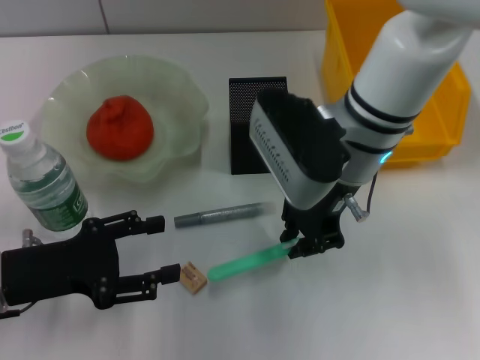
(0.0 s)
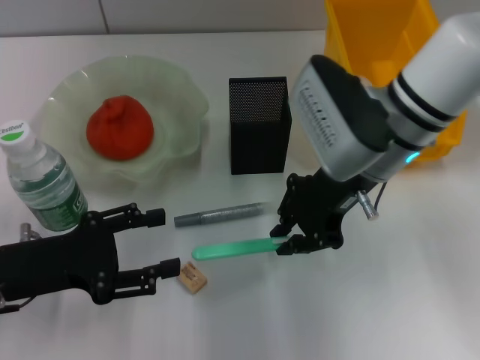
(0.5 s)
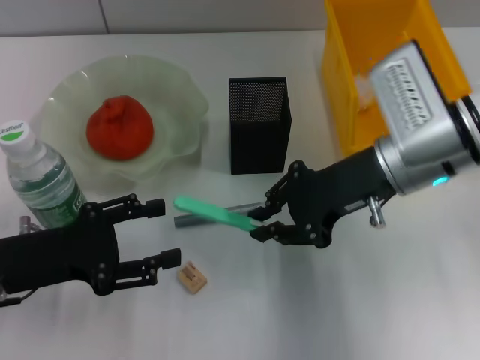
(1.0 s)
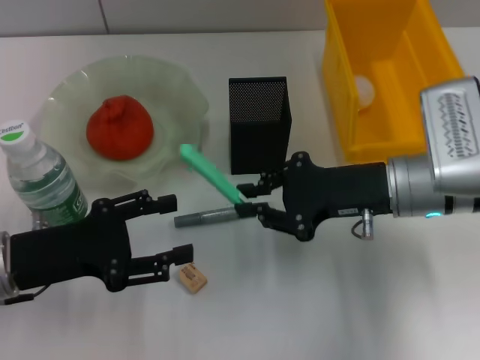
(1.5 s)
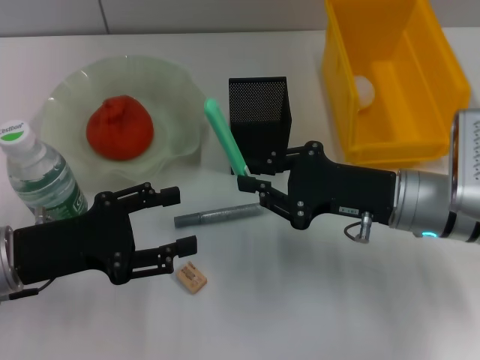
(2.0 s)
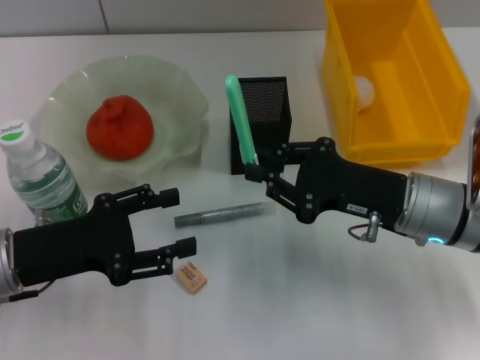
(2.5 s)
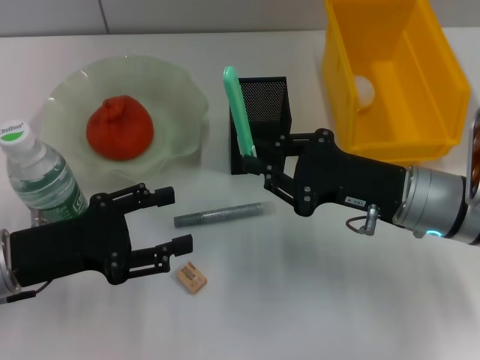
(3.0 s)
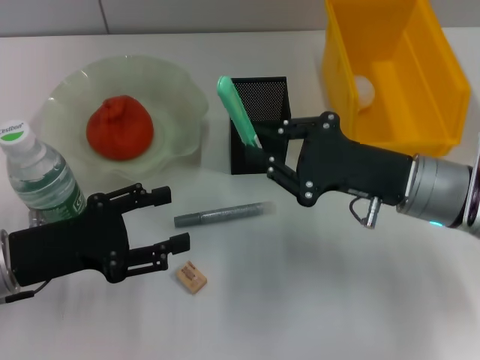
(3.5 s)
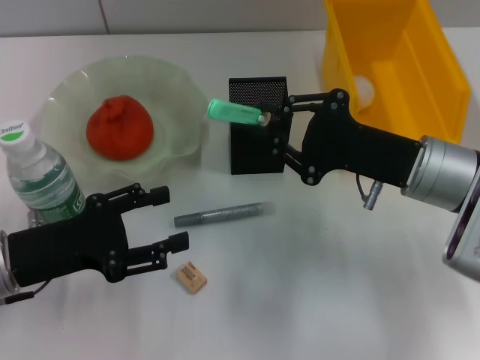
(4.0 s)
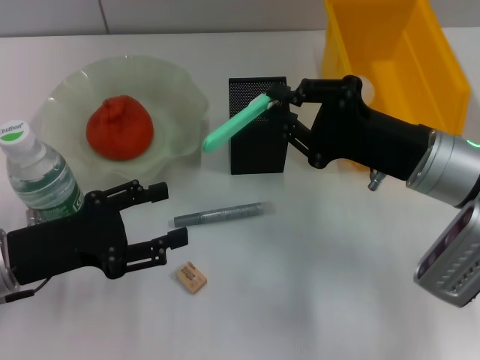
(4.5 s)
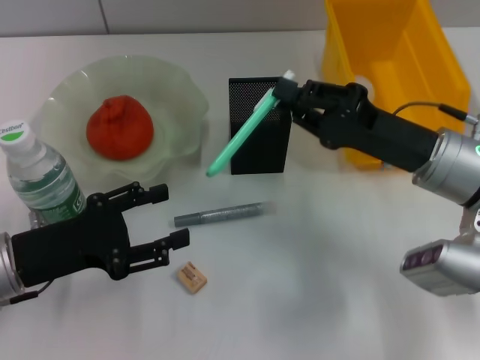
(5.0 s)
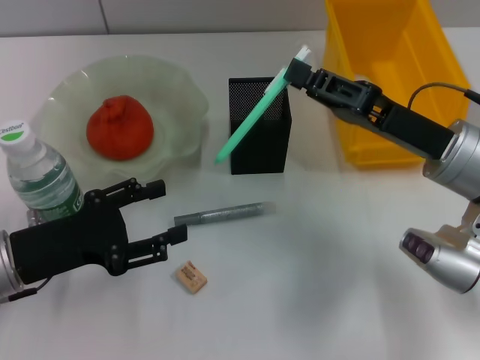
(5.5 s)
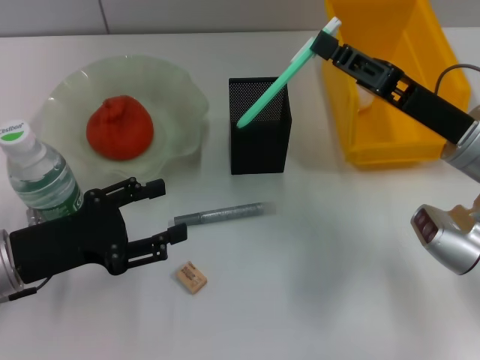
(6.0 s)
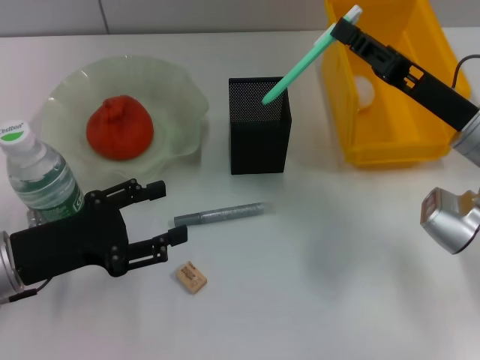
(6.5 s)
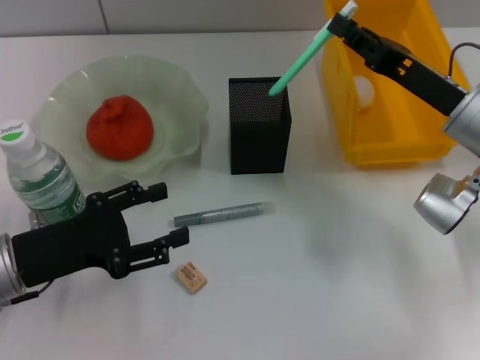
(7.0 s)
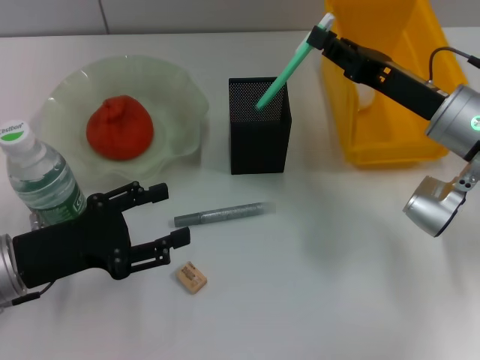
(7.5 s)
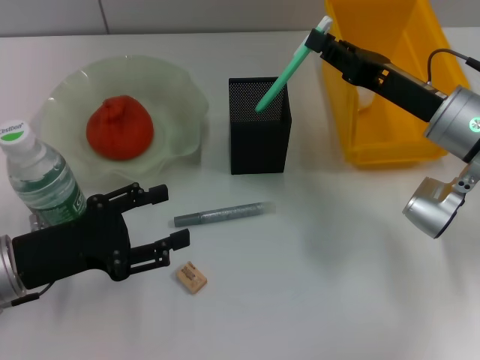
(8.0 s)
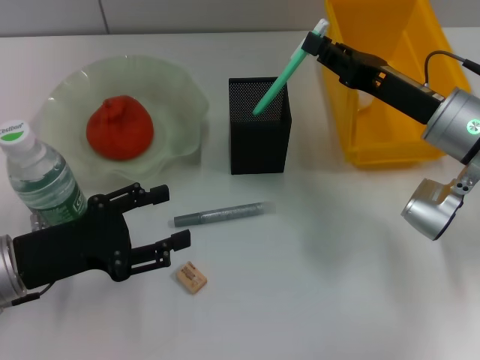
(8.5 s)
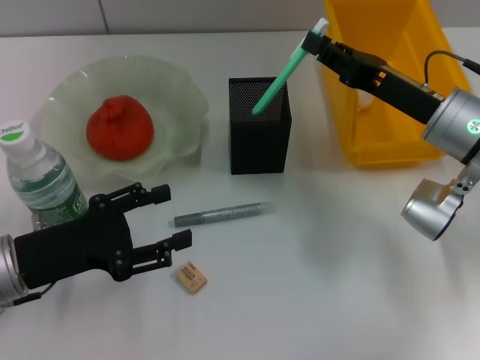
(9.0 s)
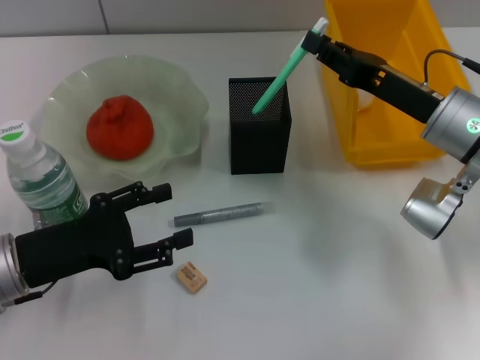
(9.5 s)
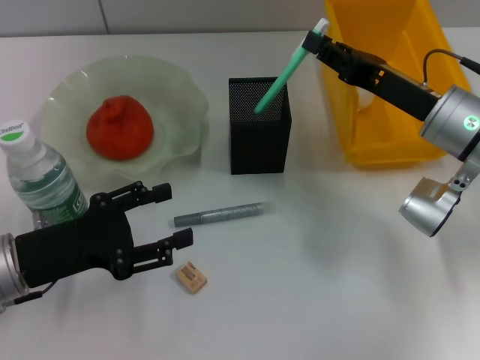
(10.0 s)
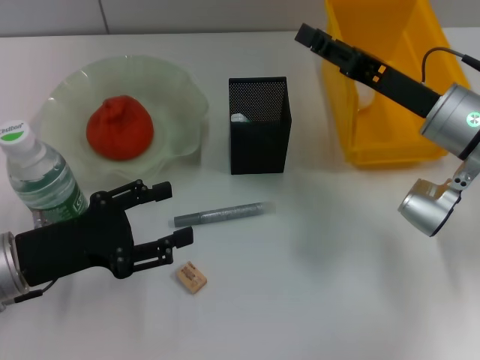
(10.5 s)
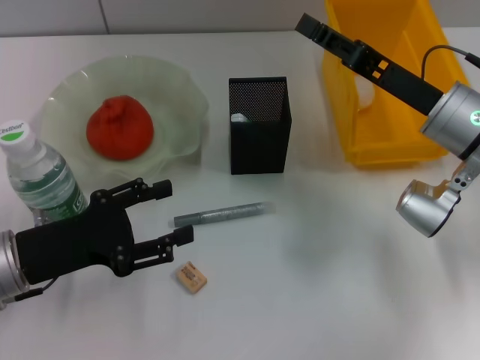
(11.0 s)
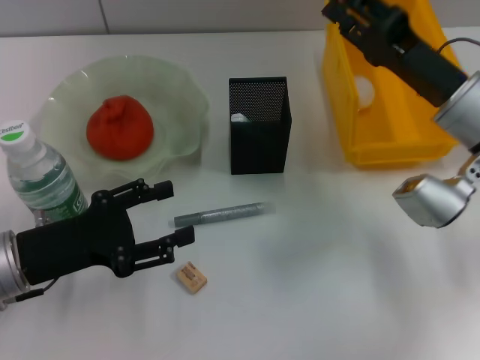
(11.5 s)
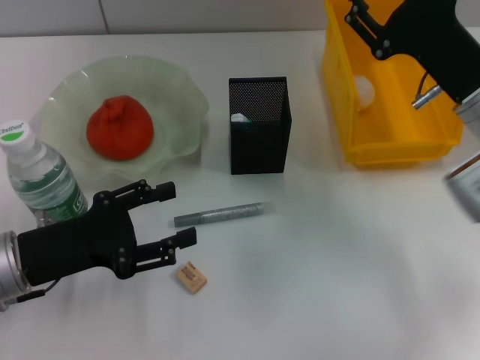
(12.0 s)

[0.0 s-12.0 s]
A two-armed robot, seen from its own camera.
Step, 0.0 to 11.0 s: Place the blue utility knife into the pen holder with the right hand.
0.0 to 2.0 s: The right gripper shifts roughly 15 cm to the right, downward and backward.
6.0 to 8.0 s: The grippers make only small movements.
8.0 to 10.0 s: Neither gripper changes place.
10.0 to 12.0 s: The right gripper opens up.

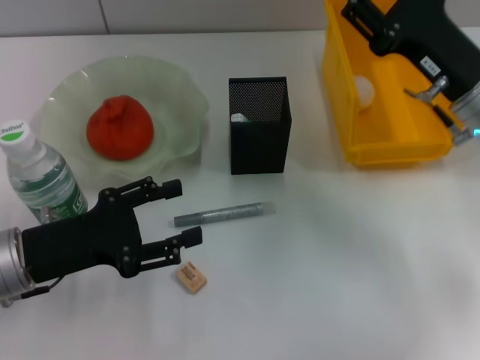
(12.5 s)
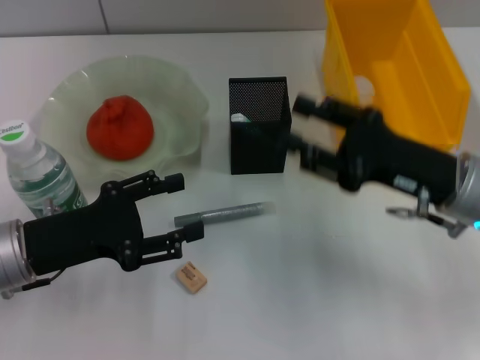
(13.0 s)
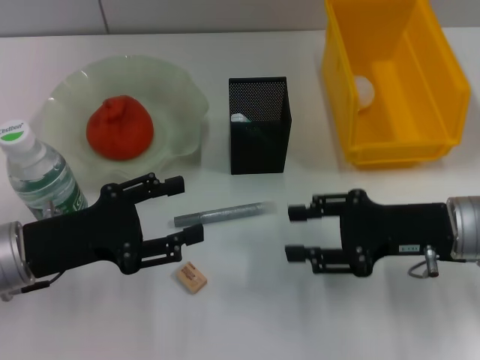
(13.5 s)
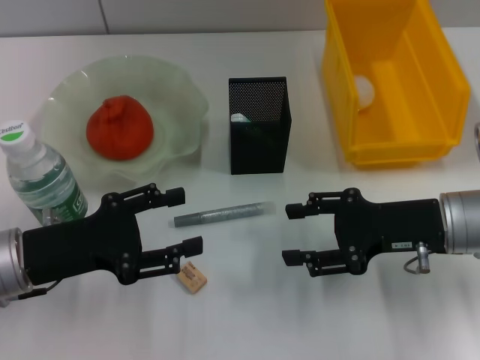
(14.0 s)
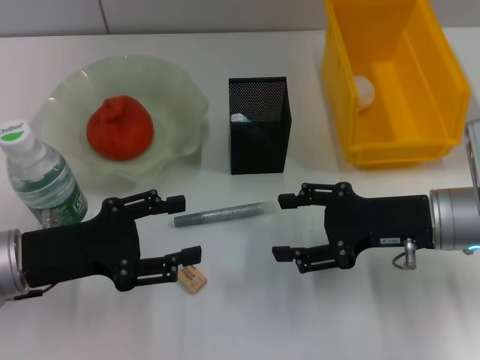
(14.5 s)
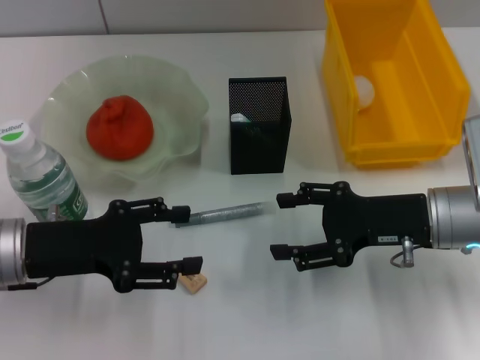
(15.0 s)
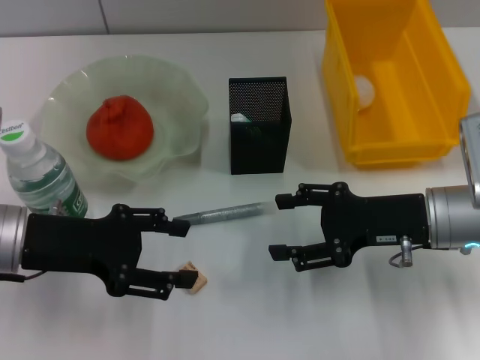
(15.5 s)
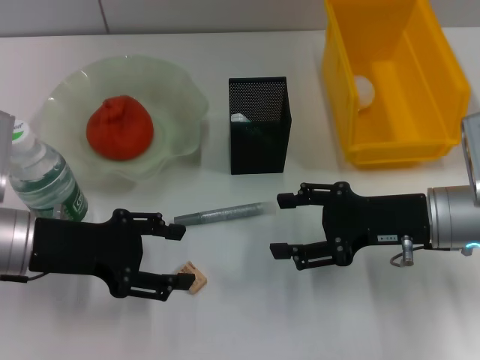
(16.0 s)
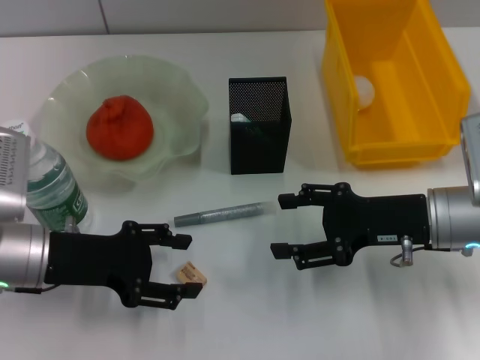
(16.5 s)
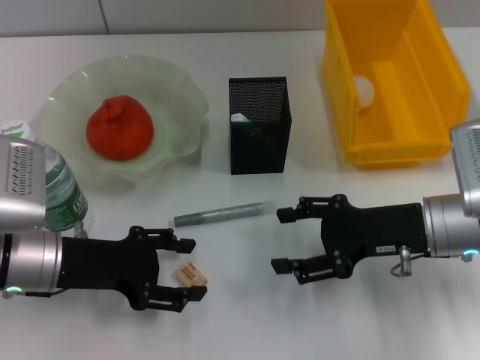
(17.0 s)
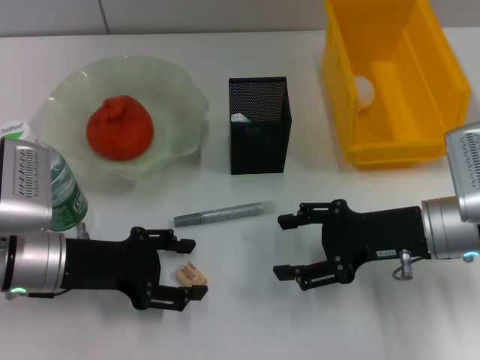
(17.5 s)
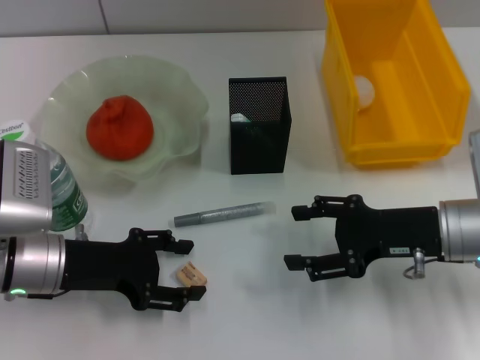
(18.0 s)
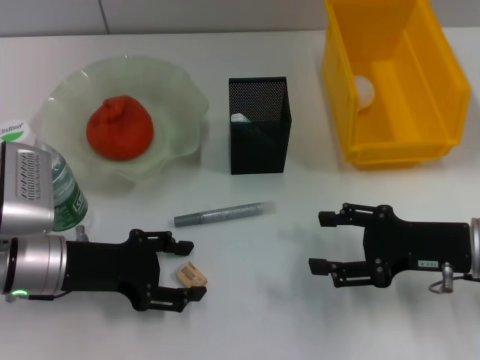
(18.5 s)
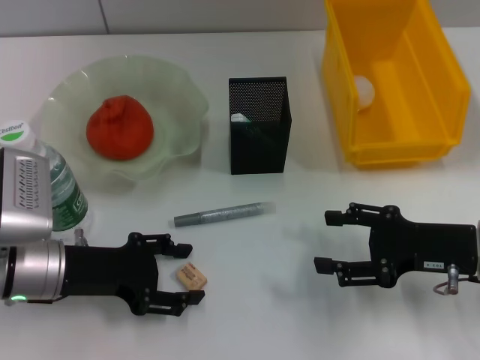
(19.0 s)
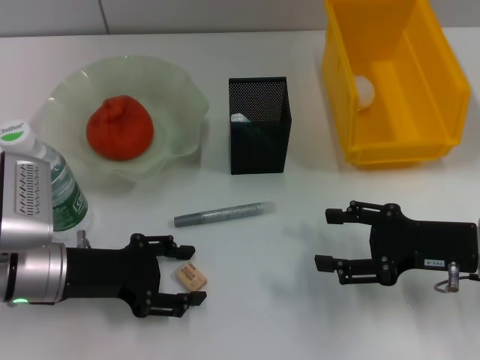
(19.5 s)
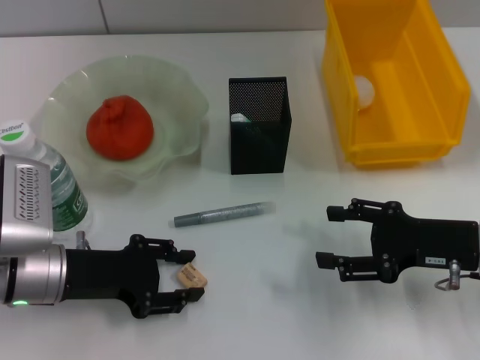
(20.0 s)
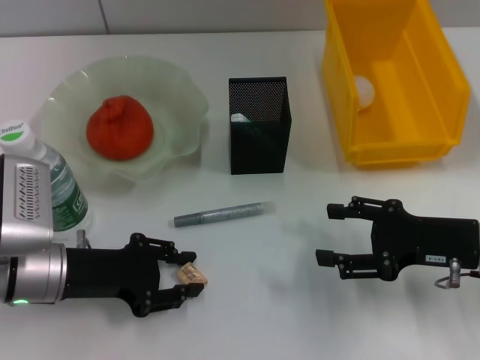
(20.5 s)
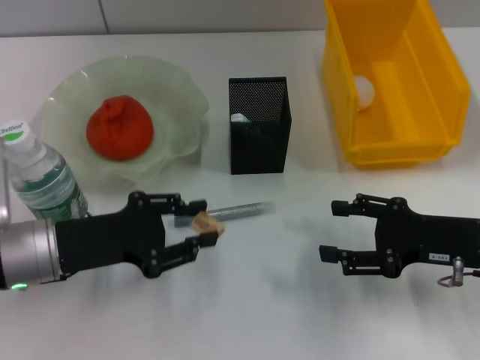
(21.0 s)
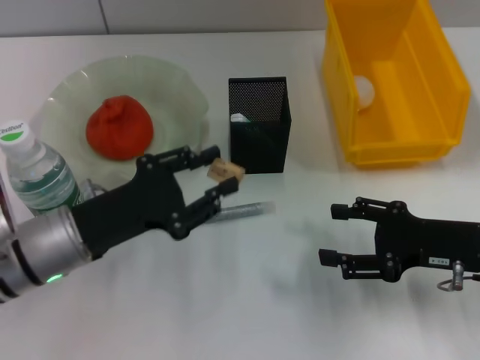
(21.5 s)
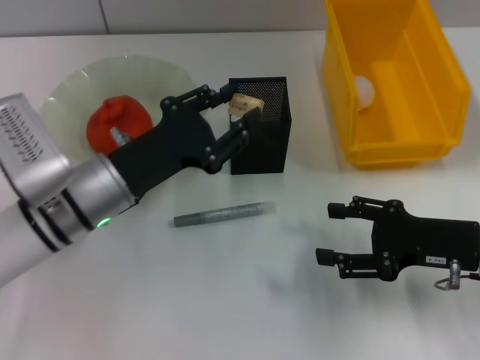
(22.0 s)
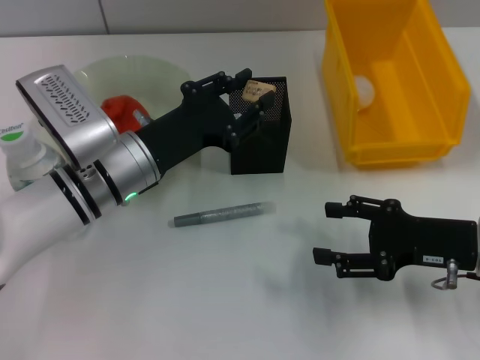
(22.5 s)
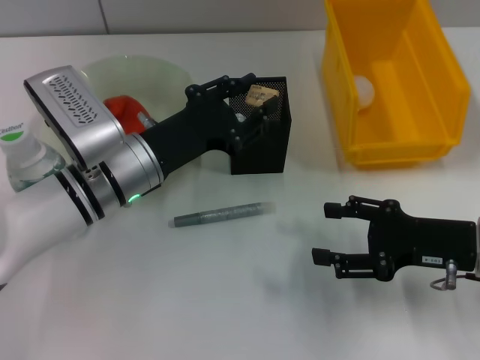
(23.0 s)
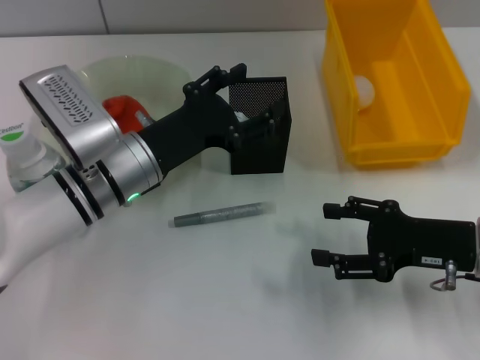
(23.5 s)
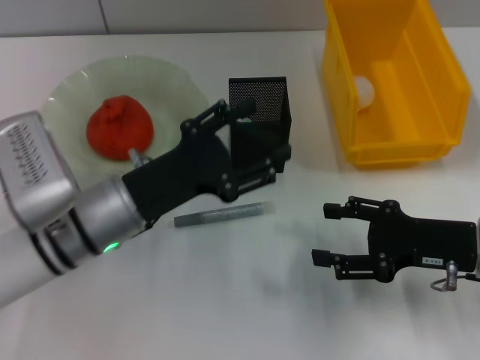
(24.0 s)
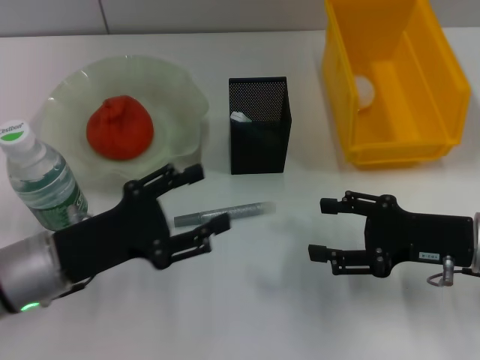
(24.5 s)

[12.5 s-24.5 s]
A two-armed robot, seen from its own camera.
Step, 12.5 to 20.0 s: Grab the eraser with the left hand.
Step, 20.5 to 23.5 s: Place the eraser into the pen holder with the left hand.
12.5 to 14.5 s: The right gripper shifts by some 5 cm.
16.5 to 18.5 s: The right gripper moves about 5 cm.
18.5 to 20.5 s: The left gripper closes its fingers.
20.5 to 22.5 s: The left gripper shifts approximately 10 cm to the right and forward.
22.5 to 24.5 s: The left gripper moves backward and to the left, approximately 10 cm, and opens its fingers.

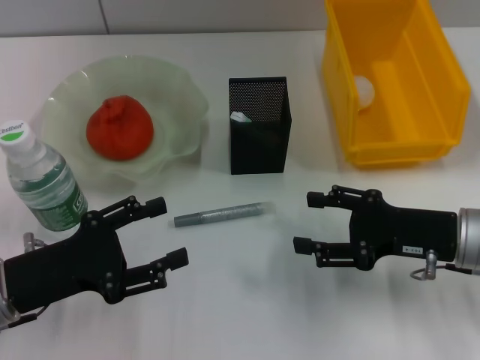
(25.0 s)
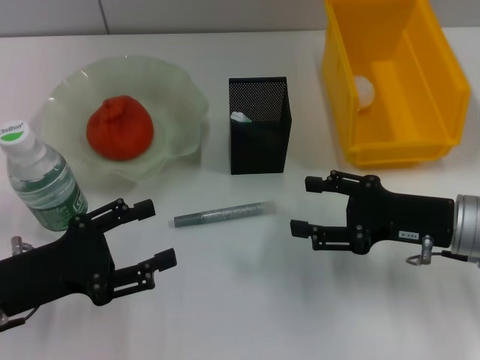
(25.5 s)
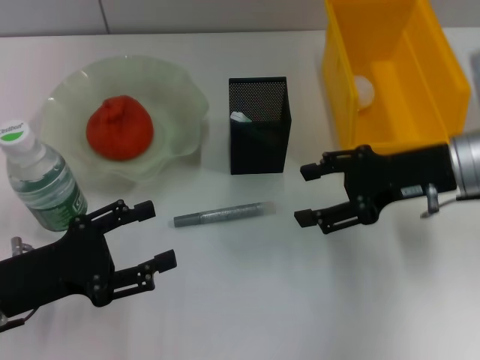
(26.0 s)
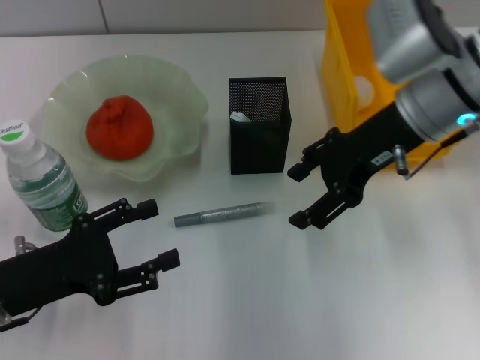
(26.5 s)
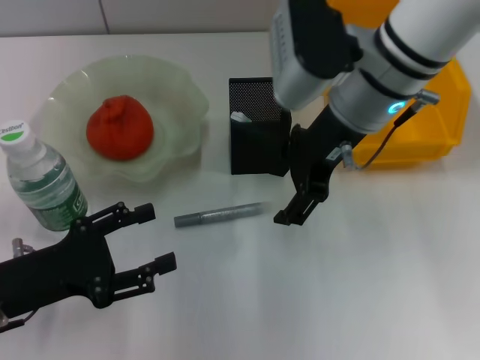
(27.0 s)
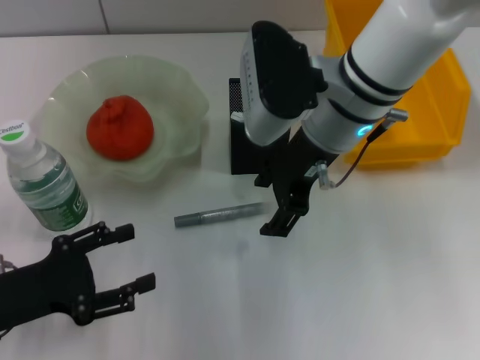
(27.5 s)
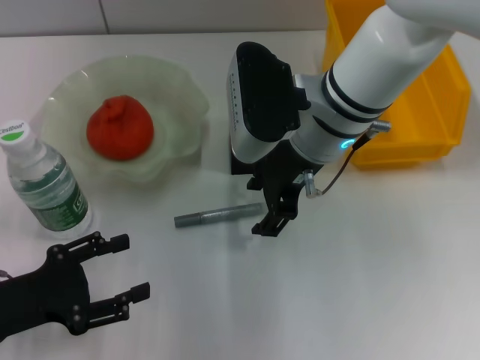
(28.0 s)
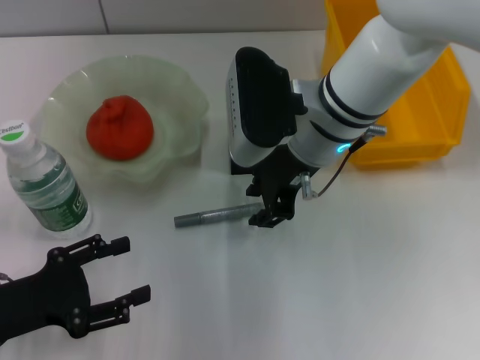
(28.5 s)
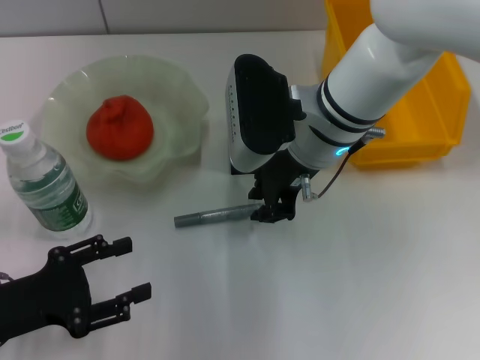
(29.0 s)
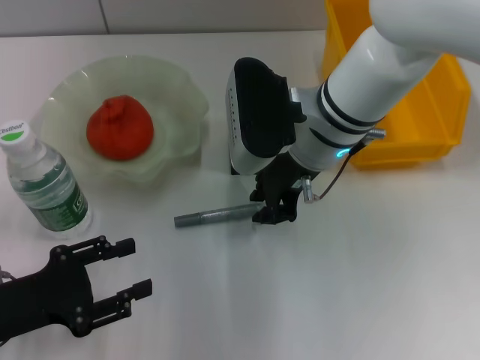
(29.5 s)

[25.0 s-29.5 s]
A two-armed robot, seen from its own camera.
25.0 to 27.0 s: The right gripper shifts approximately 20 cm to the left, upward and forward.
27.0 to 29.5 s: The right gripper goes about 5 cm downward, and closes.
